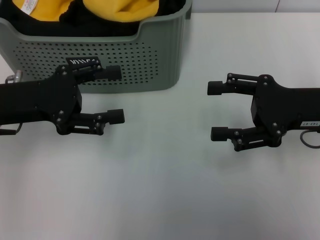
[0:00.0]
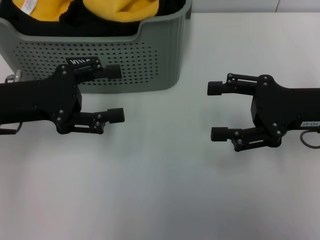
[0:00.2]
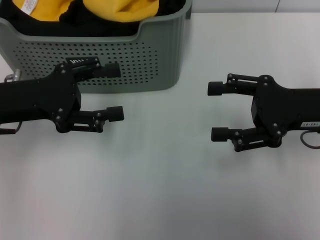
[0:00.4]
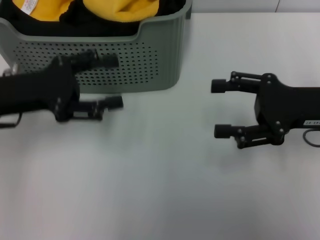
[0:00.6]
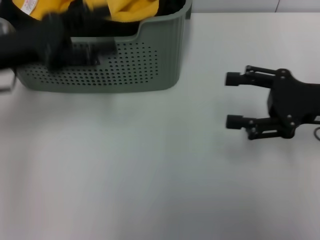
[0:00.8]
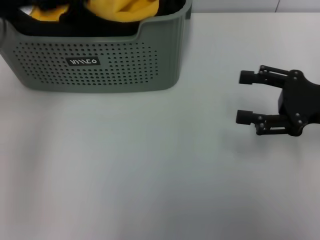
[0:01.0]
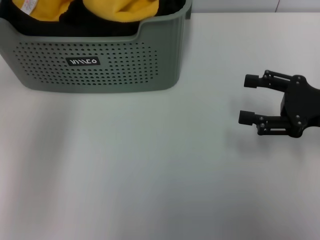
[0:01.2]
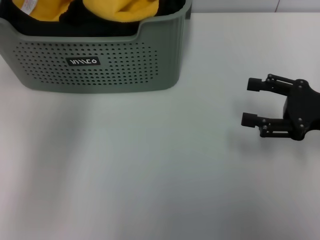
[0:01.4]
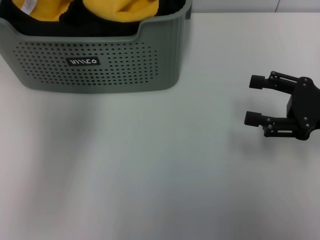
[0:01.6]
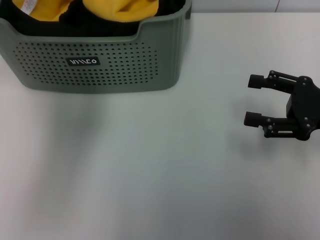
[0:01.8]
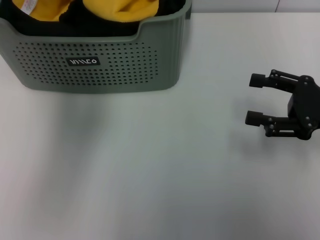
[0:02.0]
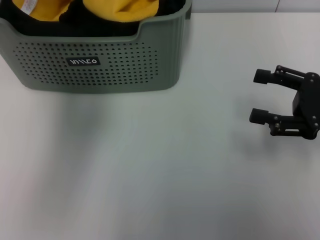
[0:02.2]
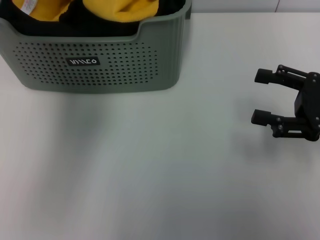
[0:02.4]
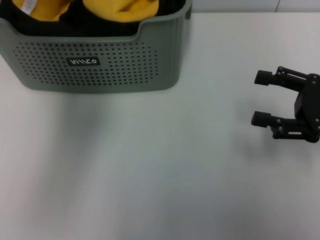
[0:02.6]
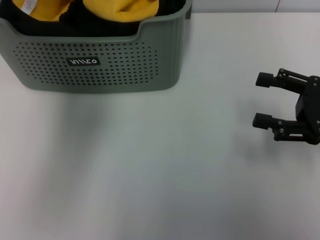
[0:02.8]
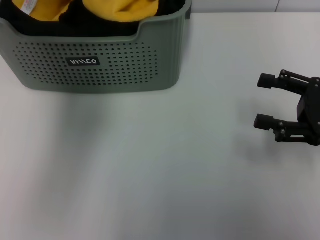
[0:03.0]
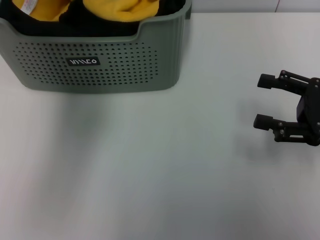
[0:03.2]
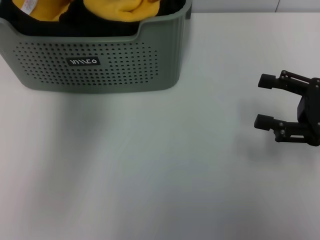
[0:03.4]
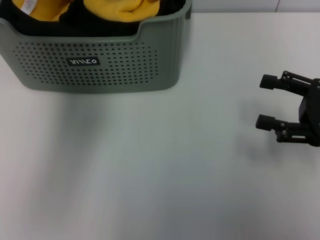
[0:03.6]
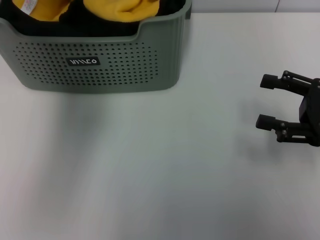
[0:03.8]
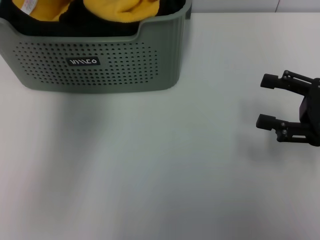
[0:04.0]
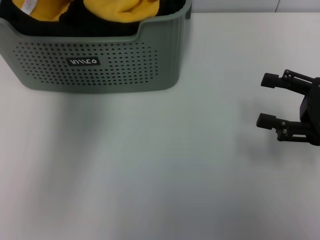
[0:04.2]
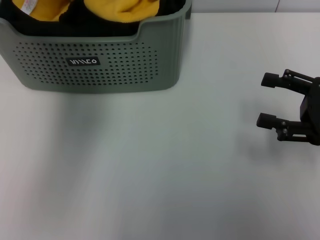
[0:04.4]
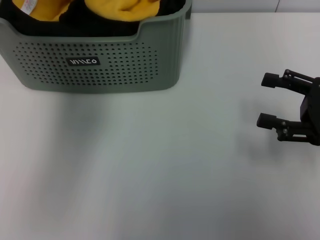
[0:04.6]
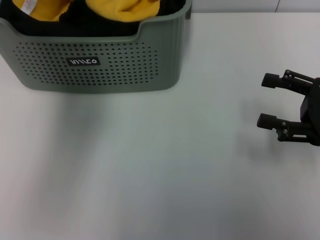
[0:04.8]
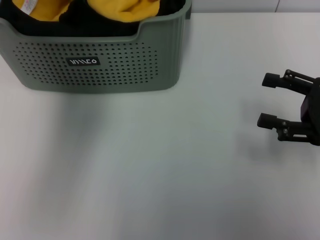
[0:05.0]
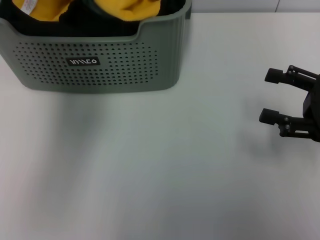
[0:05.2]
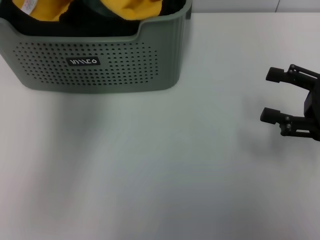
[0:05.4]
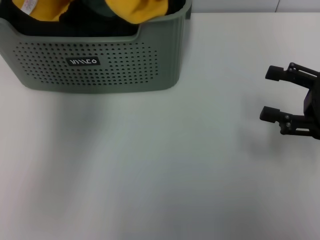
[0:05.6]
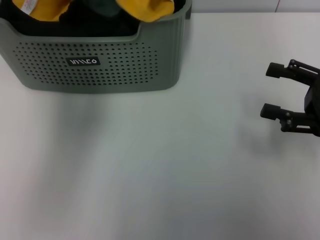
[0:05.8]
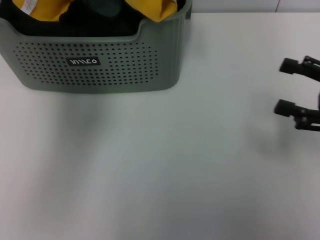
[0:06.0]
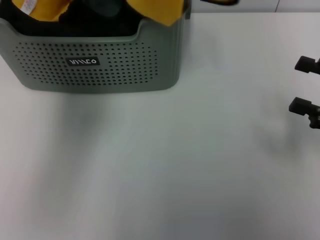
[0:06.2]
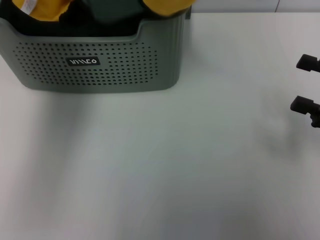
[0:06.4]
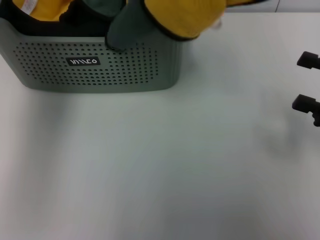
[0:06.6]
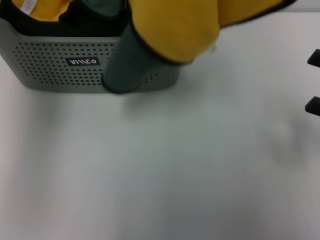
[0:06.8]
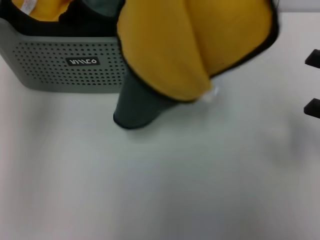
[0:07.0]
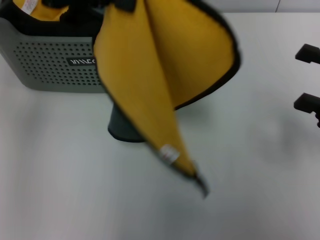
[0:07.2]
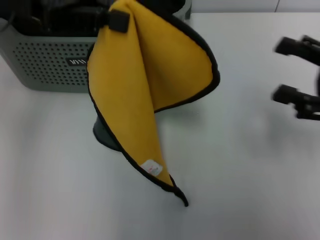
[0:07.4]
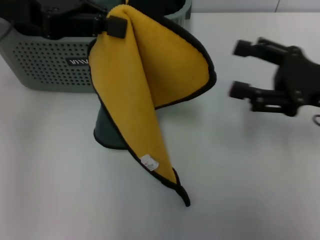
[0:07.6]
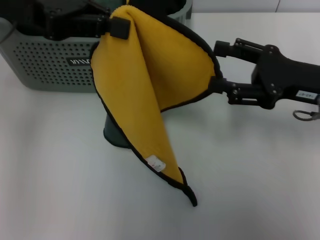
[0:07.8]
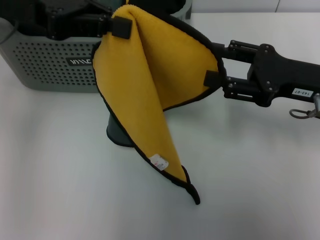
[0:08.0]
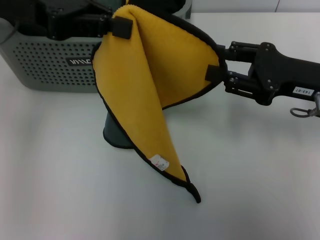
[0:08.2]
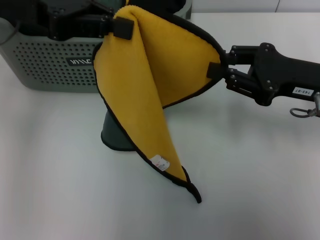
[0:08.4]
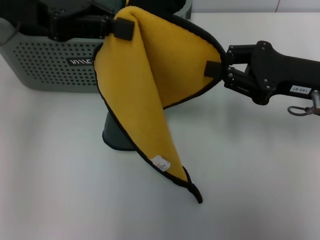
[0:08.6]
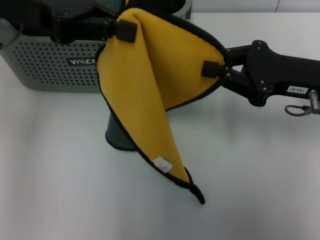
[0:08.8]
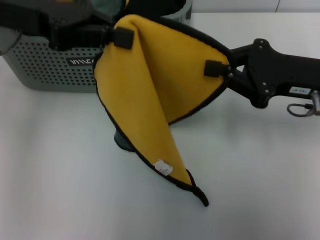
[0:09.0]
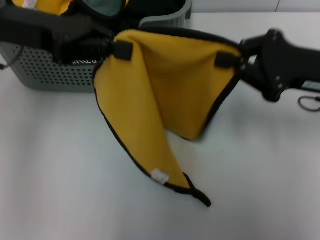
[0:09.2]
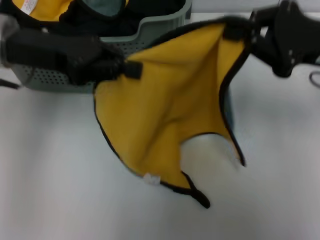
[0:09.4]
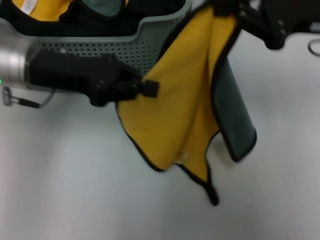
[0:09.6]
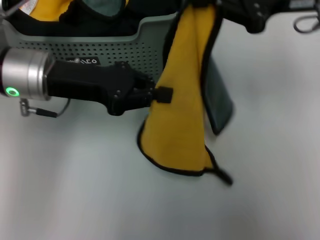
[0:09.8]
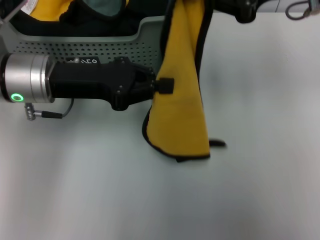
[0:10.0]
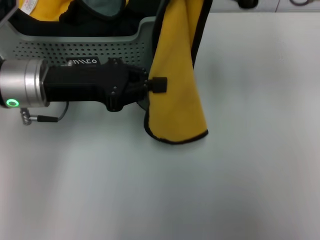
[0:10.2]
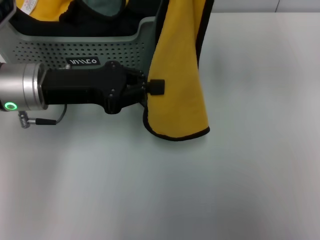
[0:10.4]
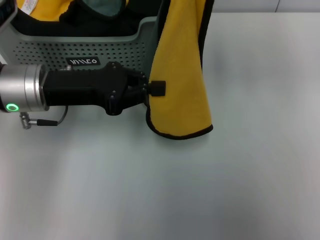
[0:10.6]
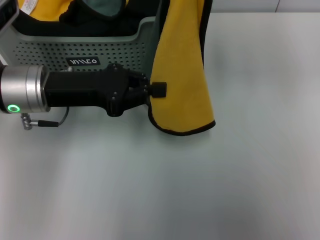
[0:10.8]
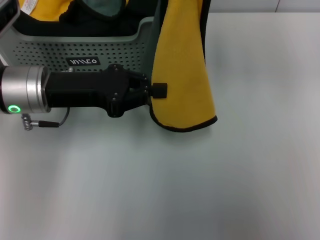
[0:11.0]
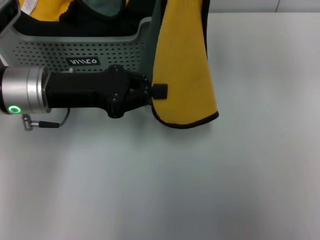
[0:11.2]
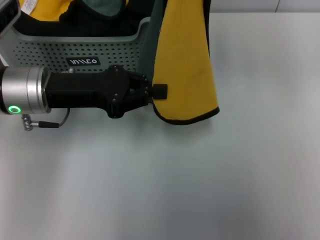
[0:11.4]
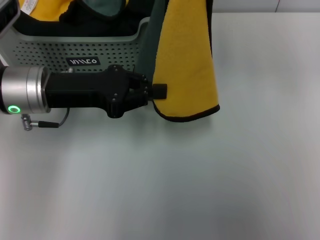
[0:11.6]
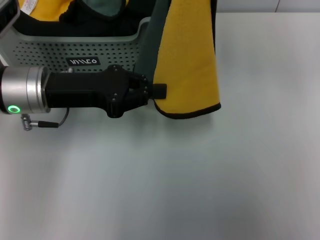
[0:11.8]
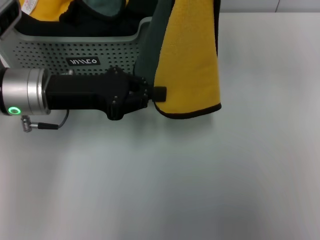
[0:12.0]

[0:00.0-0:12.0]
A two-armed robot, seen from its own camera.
Task of the whole recording: pick up the towel from the storage box and lay it flat on the table.
Step, 0:00.0 to 0:04.2: Pick up a towel with the left gripper.
Step, 0:04.4 to 0:08.4: Spread the towel flat with the left gripper.
0:00.0 to 0:01.6: The right gripper travels to the right by some 5 cm. The left gripper shifts approximately 20 cm upward and forward.
0:01.6 to 0:03.0: The left gripper changes place by some 5 cm.
0:04.4 to 0:06.0: The left gripper heads upward, covering about 5 cm, and closes its fingers.
0:06.0 to 0:07.6: The right gripper goes some 5 cm to the left. The left gripper moves downward and to the left, some 15 cm.
0:07.6 to 0:09.0: The right gripper closes its fingers.
0:09.0 to 0:10.4: The right gripper travels upward by some 15 cm. Meanwhile the left gripper is displaced downward and backward by approximately 10 cm.
0:10.4 to 0:12.0: The grippers make only small movements.

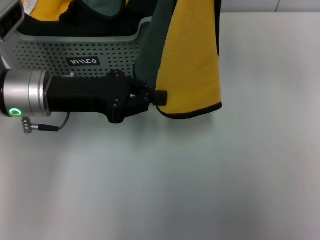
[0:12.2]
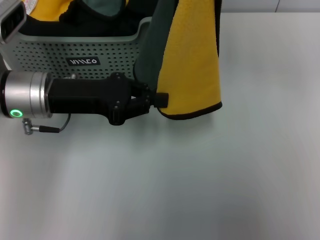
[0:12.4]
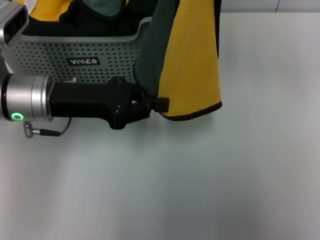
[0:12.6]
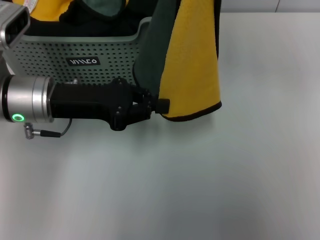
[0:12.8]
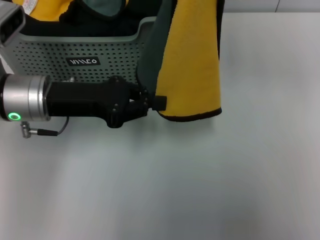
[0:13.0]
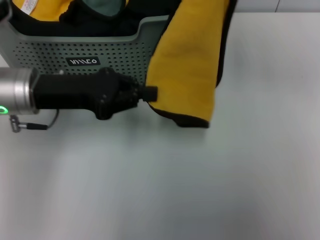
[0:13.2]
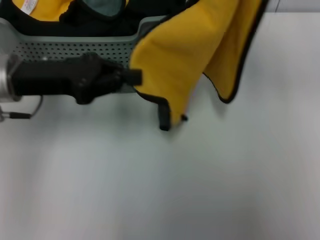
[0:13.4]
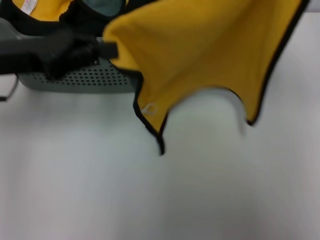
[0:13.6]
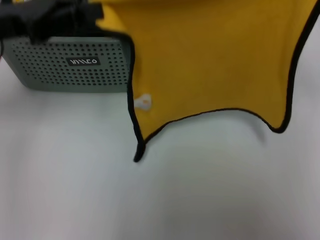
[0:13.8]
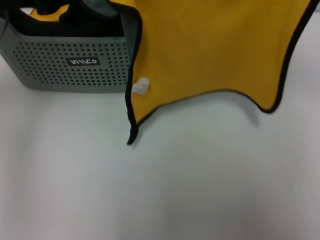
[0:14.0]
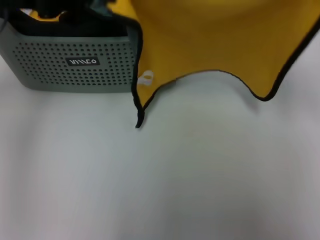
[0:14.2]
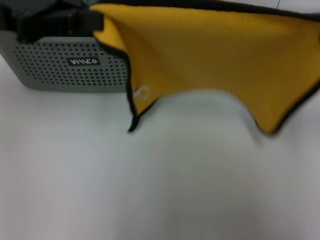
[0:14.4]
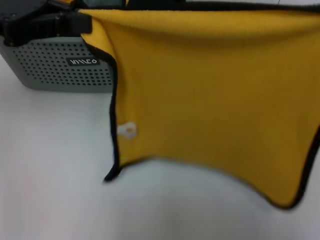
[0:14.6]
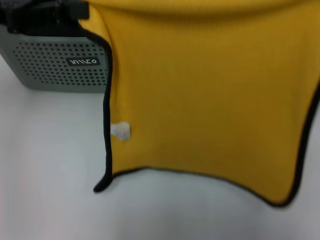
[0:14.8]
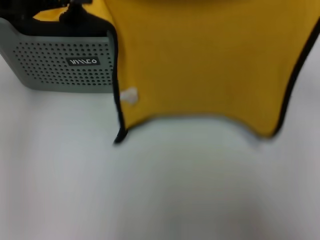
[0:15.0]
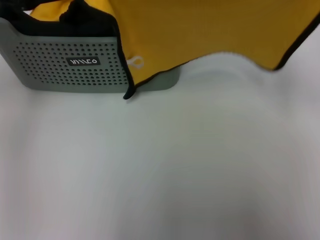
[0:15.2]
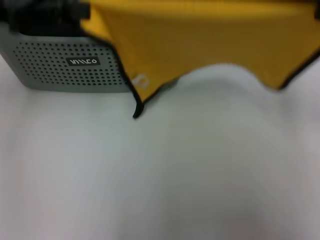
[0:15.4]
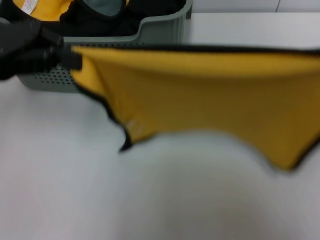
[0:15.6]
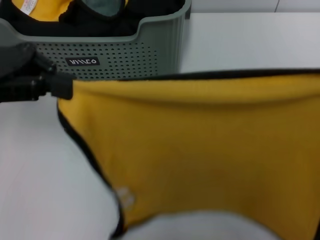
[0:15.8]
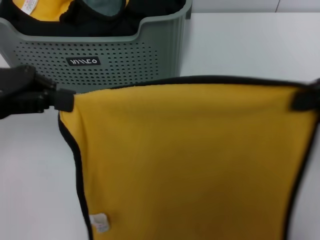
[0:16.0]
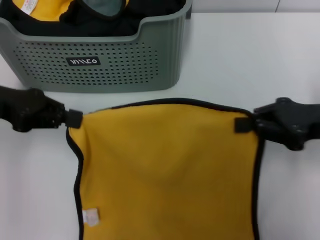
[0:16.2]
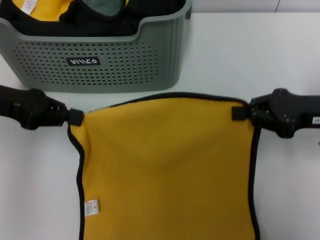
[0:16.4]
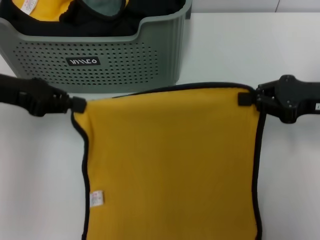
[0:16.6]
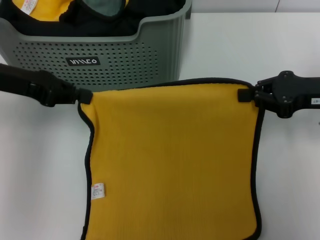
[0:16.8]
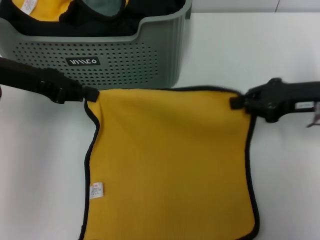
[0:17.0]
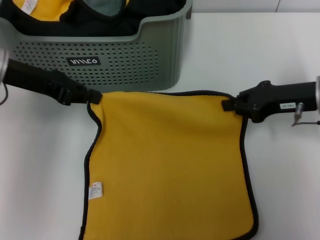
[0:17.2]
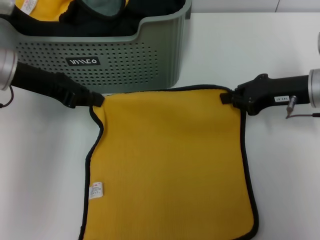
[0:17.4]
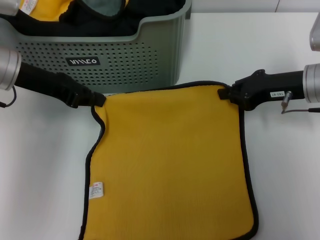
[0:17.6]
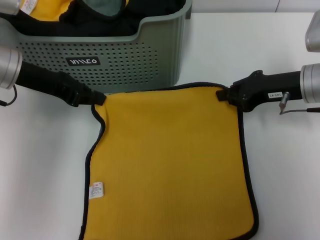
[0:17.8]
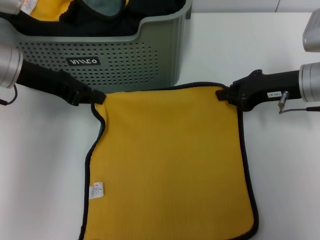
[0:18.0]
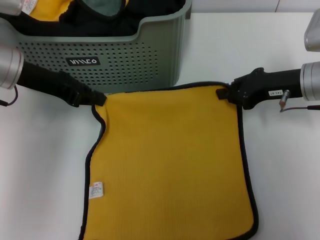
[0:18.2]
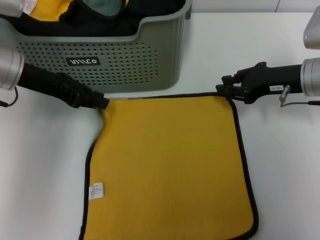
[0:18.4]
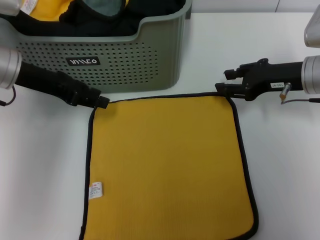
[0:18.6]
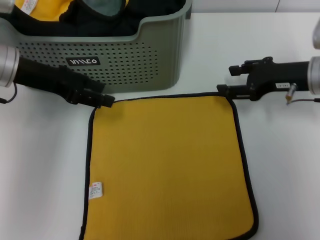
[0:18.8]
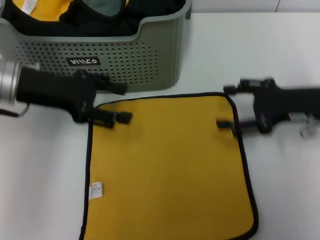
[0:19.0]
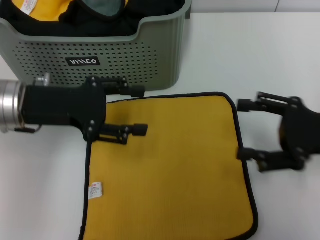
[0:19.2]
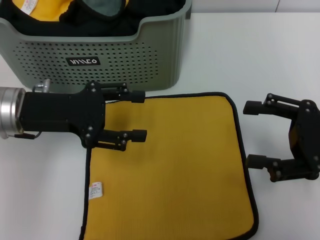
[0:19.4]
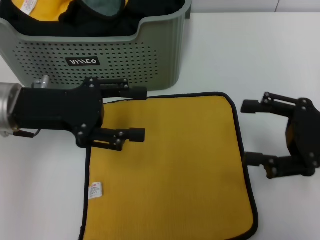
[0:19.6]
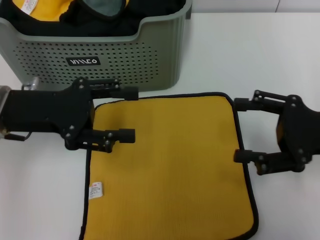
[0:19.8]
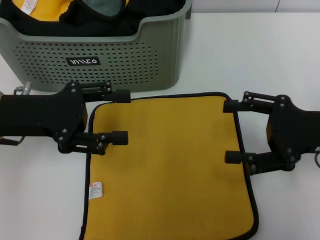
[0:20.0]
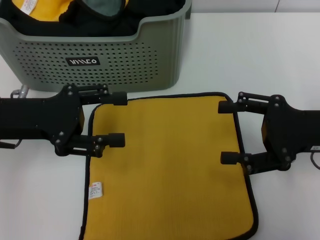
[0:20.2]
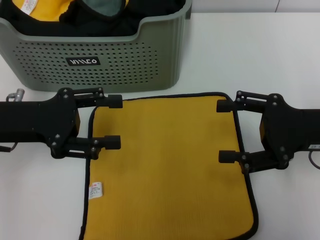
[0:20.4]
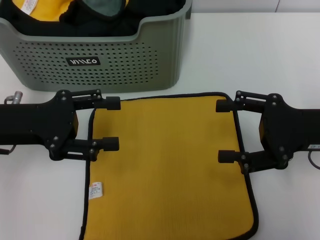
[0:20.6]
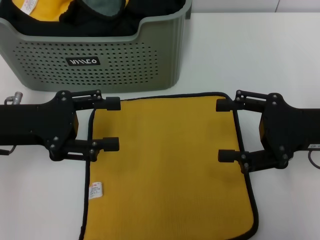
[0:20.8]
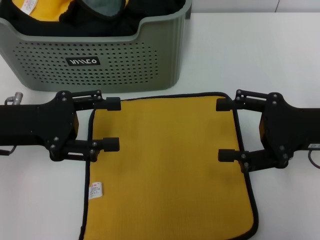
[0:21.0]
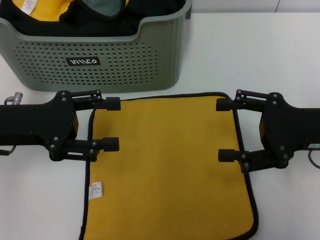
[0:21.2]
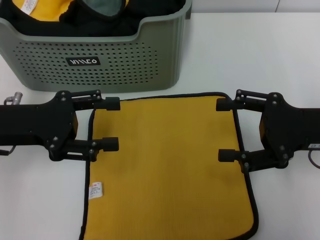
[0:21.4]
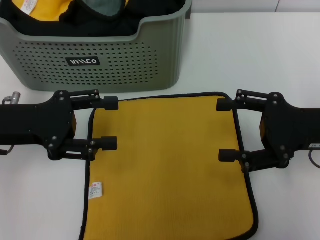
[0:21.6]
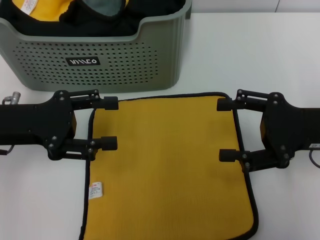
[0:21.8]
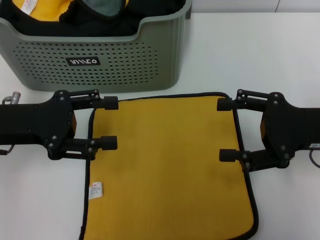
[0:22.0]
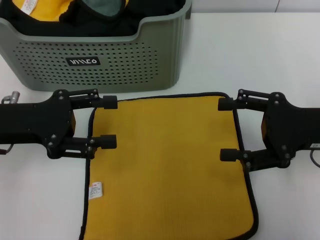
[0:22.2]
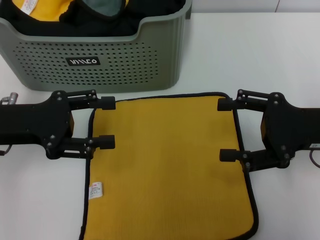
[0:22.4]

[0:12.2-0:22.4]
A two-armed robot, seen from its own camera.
Task of the whole recording: pick up the towel from the storage box and lay it flat on the table.
Step, 0:12.2 to 0:18.6: Spread the towel flat with the right gripper.
0:12.2 to 0:13.6: The right gripper shifts roughly 10 cm to the right and downward, while the left gripper heads to the left, covering roughly 5 cm.
0:13.6 to 0:15.2: The left gripper goes some 5 cm upward.
0:15.2 to 0:16.6: The left gripper is displaced downward by some 10 cm; the right gripper goes some 10 cm downward.
0:16.6 to 0:18.0: The right gripper is displaced forward and to the left by roughly 5 cm; the left gripper moves some 5 cm.
0:18.0 to 0:19.4: The right gripper travels backward and to the right by roughly 15 cm, and opens up; the left gripper travels backward by some 5 cm, and opens its fingers.
0:19.4 to 0:21.0: The grippers make only small movements.
0:21.0 to 0:22.4: The two grippers keep their place.
